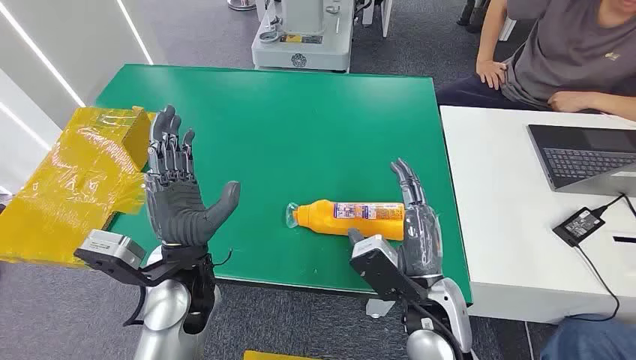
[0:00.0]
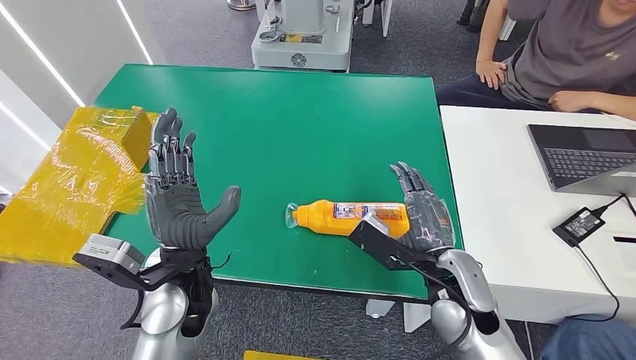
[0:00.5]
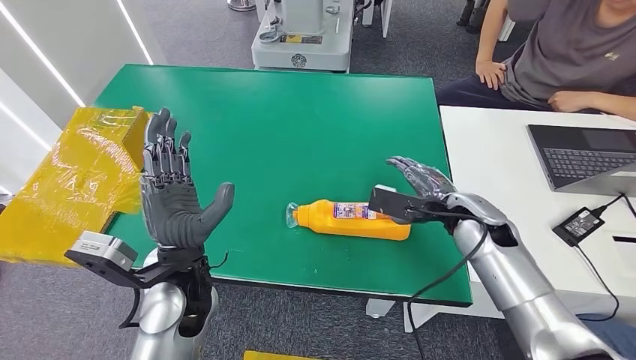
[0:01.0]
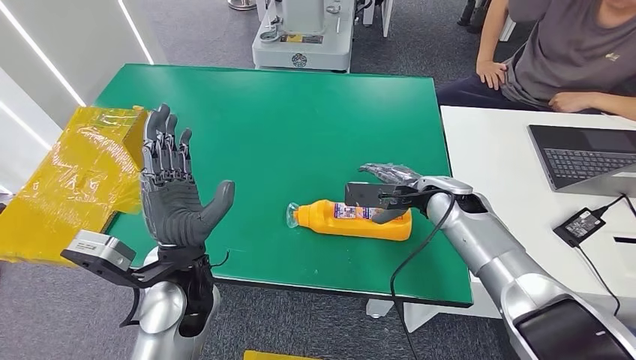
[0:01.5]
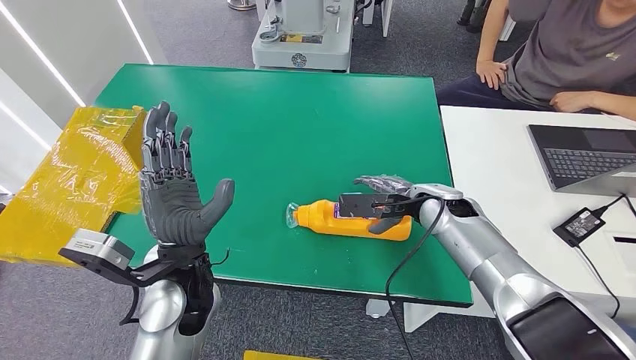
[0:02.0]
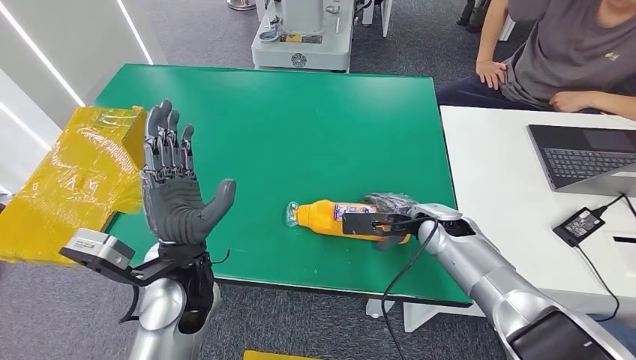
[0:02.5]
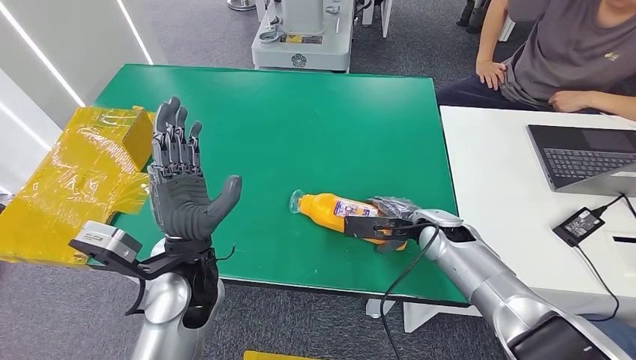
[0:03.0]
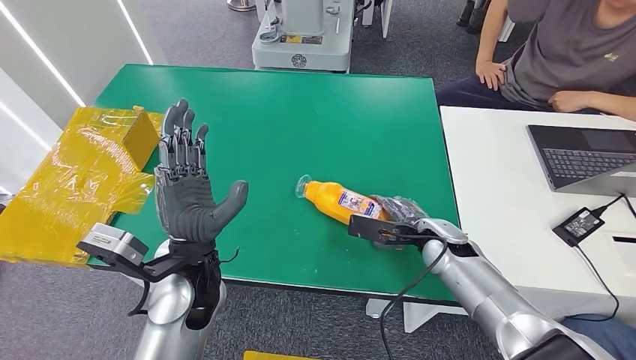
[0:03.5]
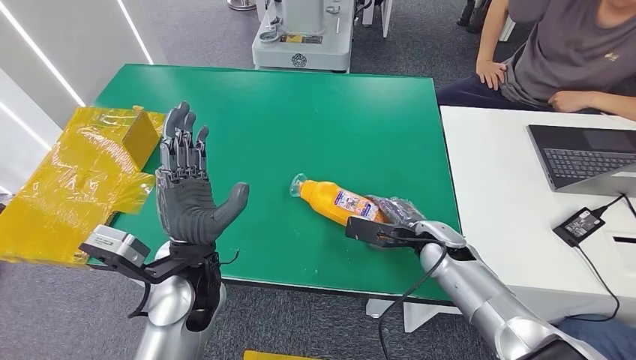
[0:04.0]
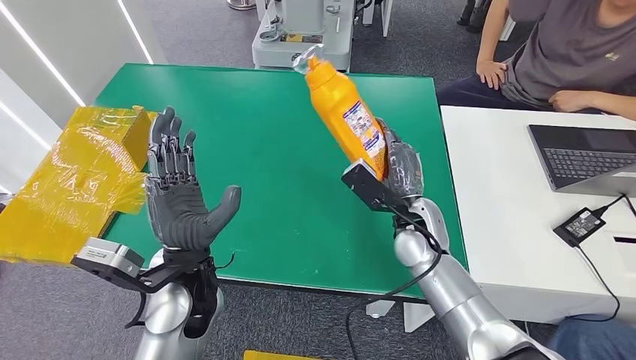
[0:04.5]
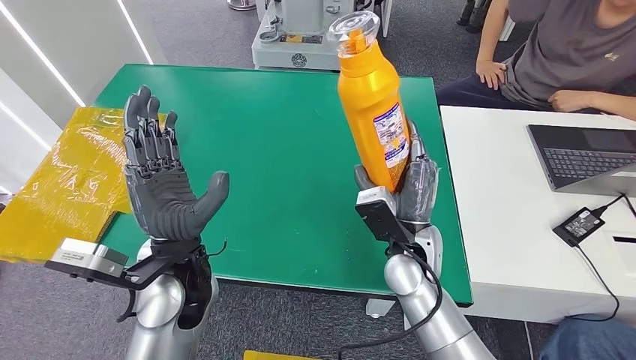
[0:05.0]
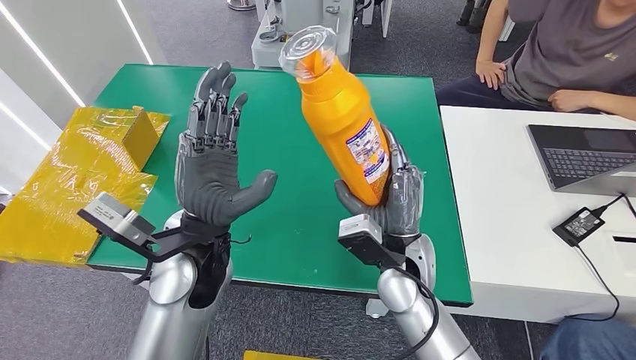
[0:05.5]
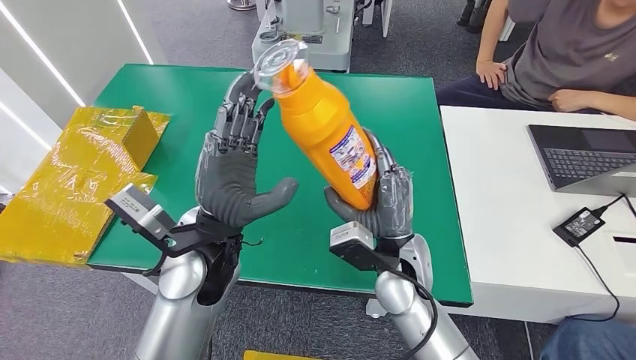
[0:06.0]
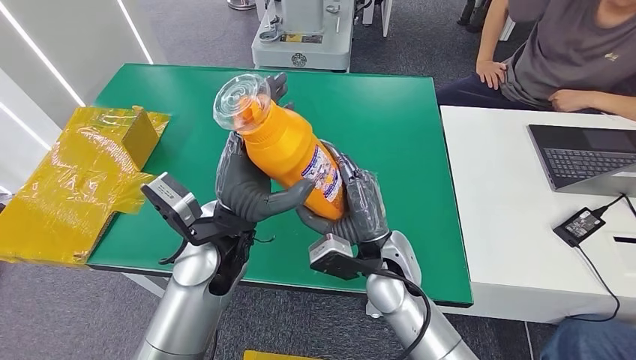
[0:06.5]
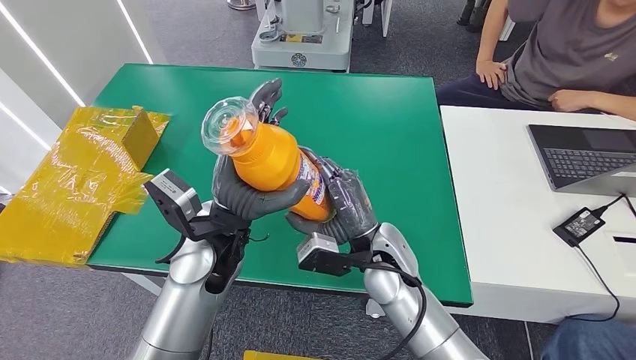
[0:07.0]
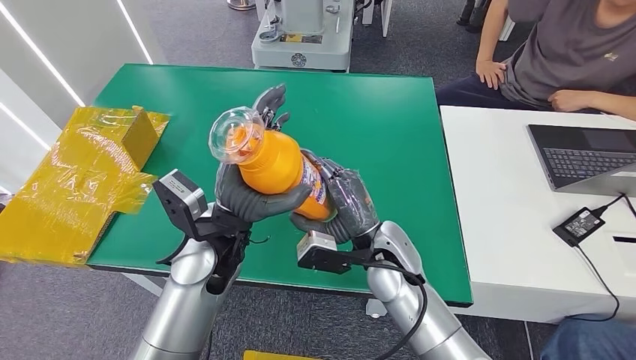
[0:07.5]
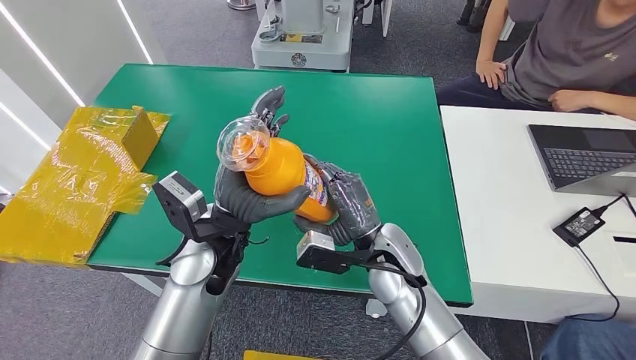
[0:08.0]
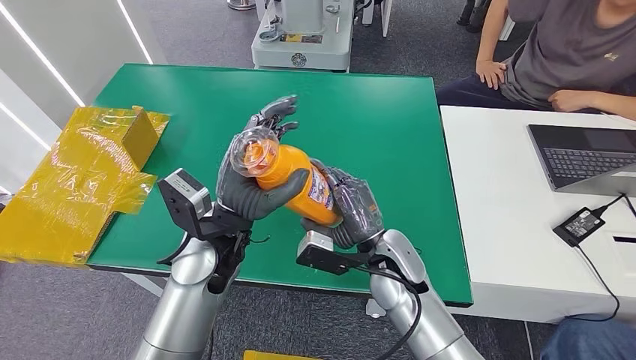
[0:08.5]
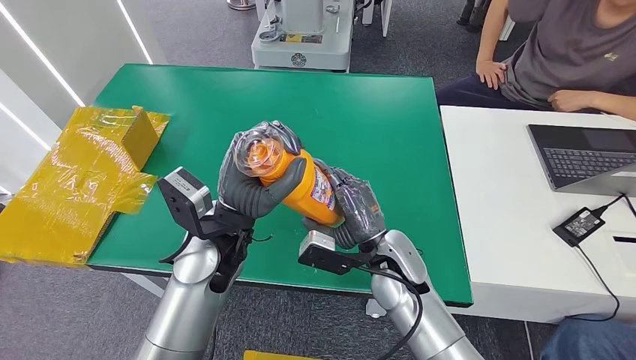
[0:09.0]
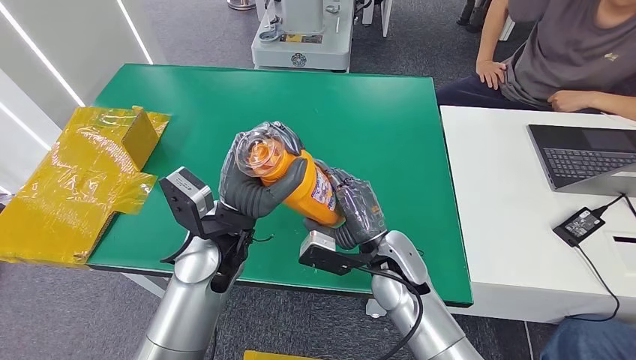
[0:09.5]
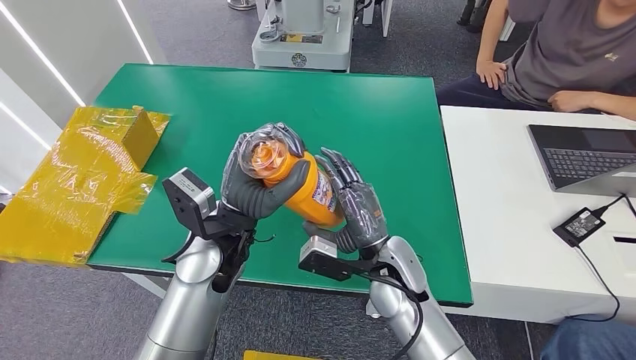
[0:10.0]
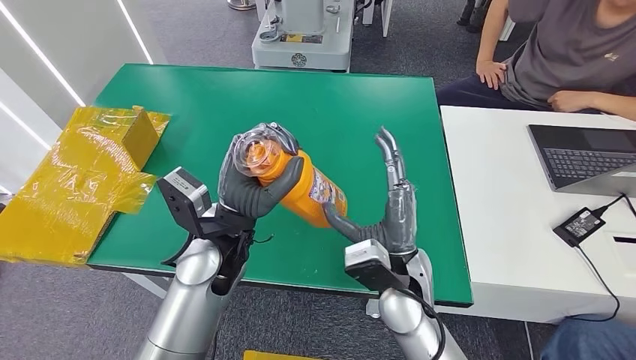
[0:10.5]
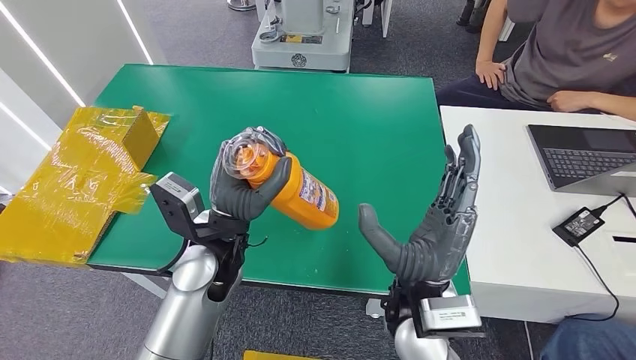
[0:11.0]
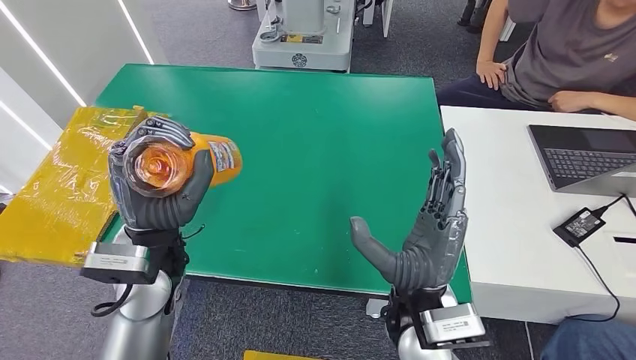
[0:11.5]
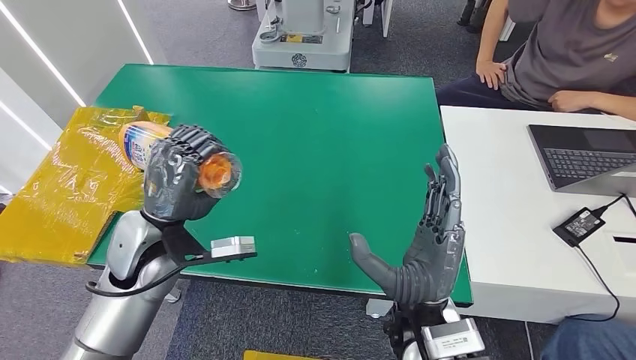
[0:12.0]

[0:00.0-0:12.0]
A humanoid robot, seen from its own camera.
Step, 0:00.0 to 0:05.0: Pick up the bottle from the table.
0:02.0 to 0:04.0: The right hand shifts roughly 10 cm downward and backward.
0:08.0 to 0:10.0: There are only small adjustments of the hands.
0:10.0 to 0:12.0: The left hand heads to the left, covering some 15 cm, while the right hand travels backward and upward by roughly 10 cm.

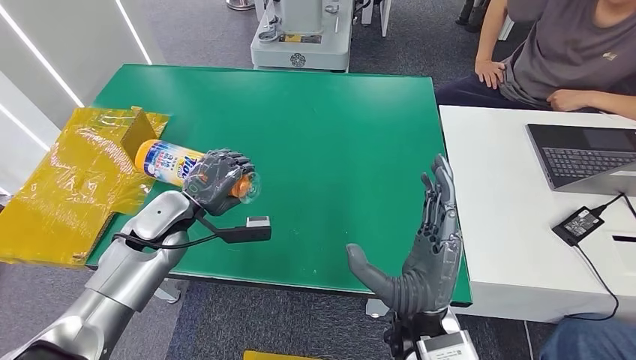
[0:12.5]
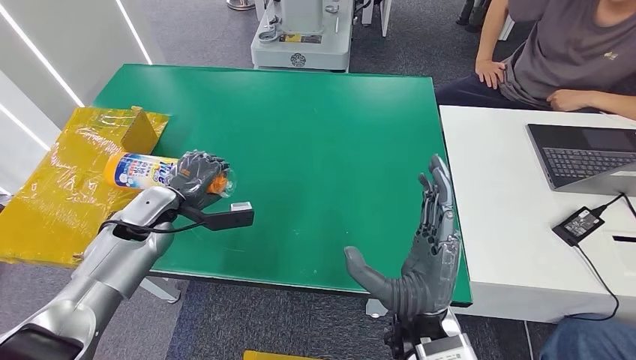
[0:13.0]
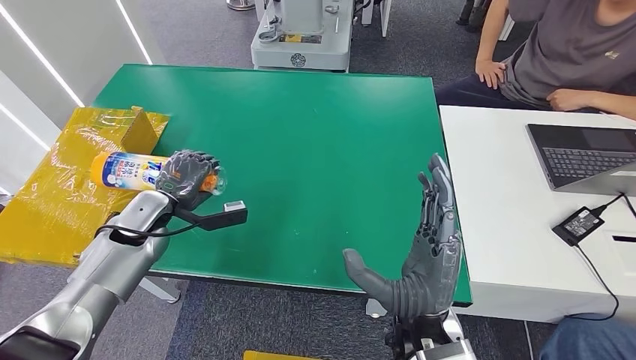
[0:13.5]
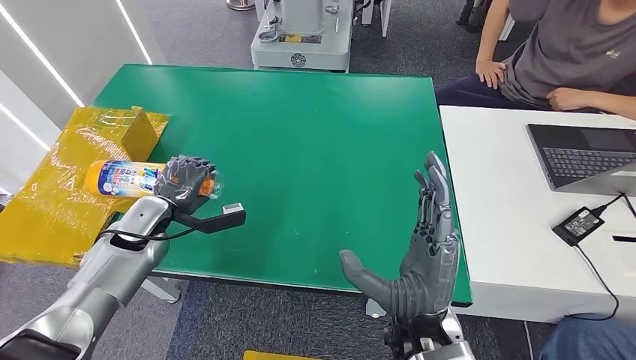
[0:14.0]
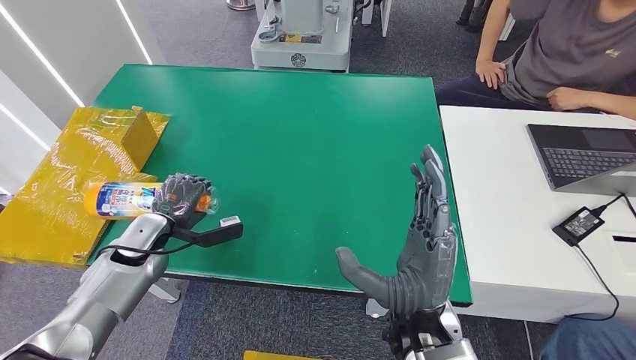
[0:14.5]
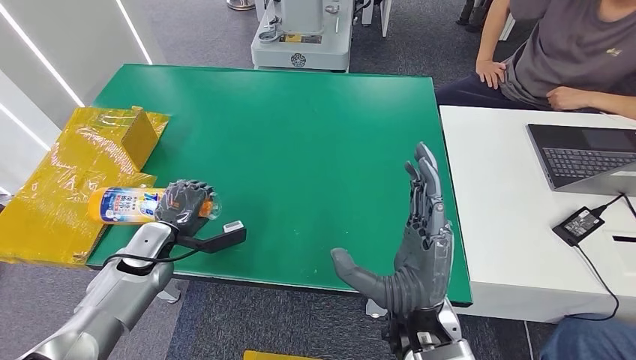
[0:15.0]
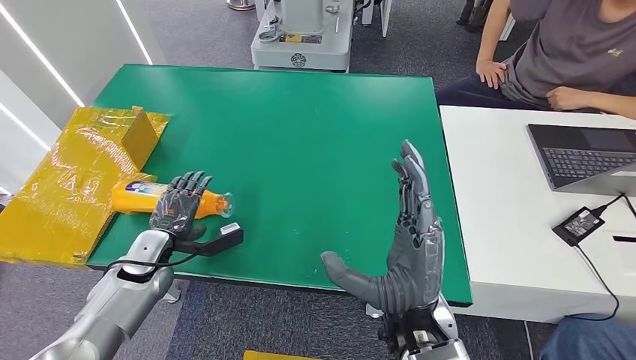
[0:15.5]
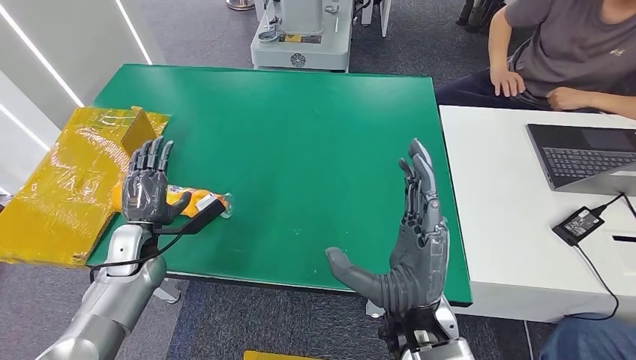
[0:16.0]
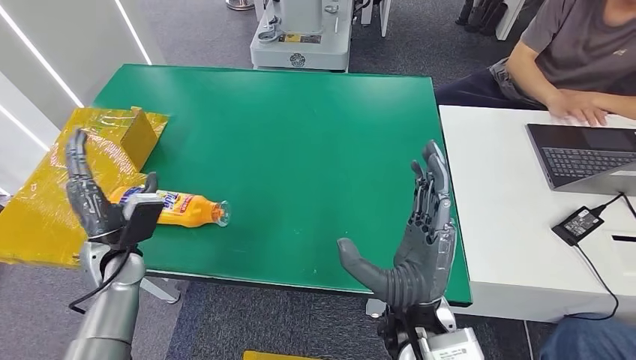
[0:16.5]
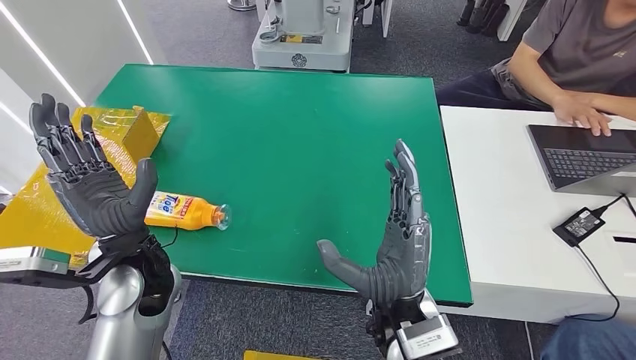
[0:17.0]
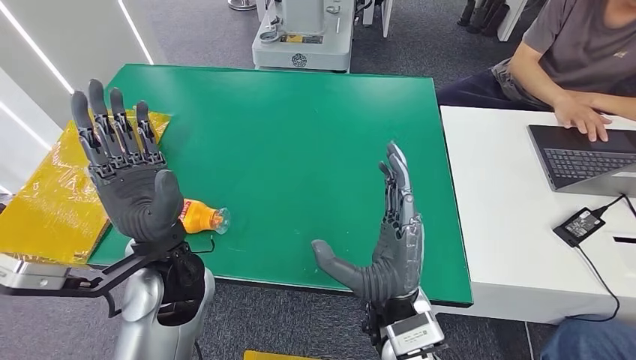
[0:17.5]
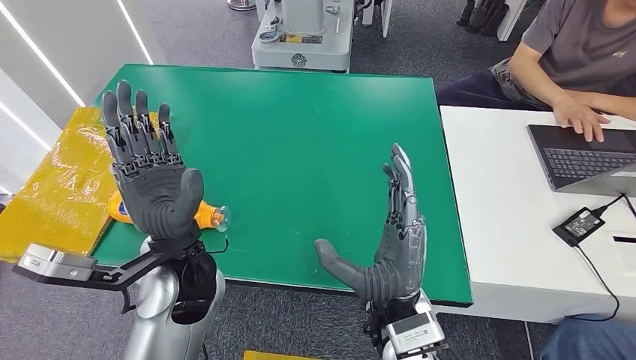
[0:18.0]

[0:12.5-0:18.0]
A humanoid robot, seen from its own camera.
Step, 0:12.5 to 0:18.0: Turn the bottle to the front side.
0:12.5 to 0:14.5: The left hand travels to the left by about 10 cm.
0:16.0 to 0:18.0: The left hand shifts about 25 cm to the right and upward.
